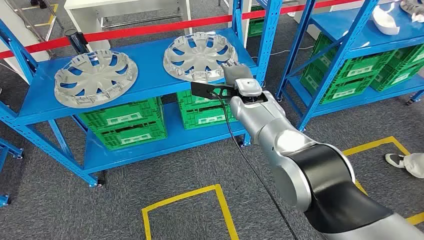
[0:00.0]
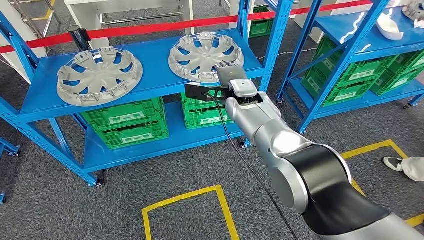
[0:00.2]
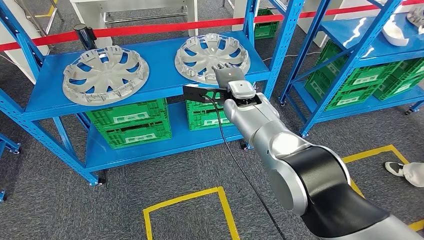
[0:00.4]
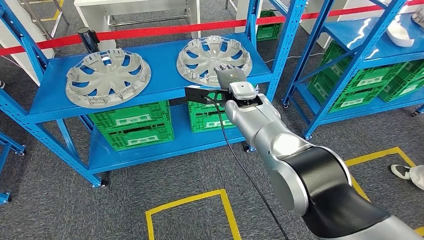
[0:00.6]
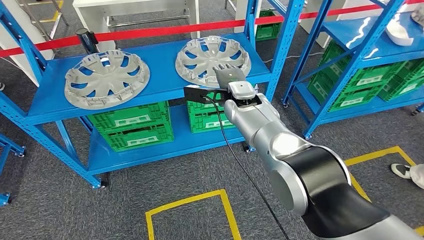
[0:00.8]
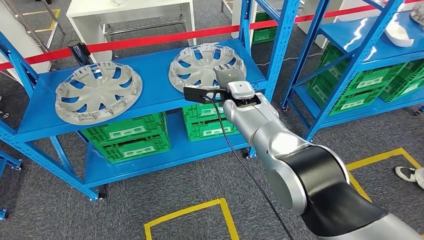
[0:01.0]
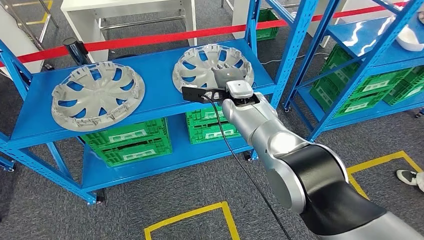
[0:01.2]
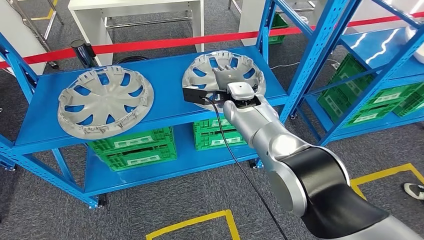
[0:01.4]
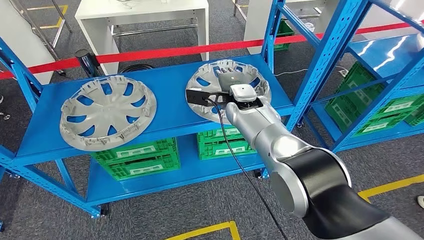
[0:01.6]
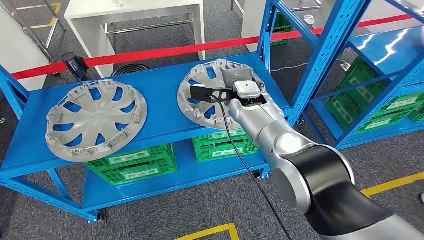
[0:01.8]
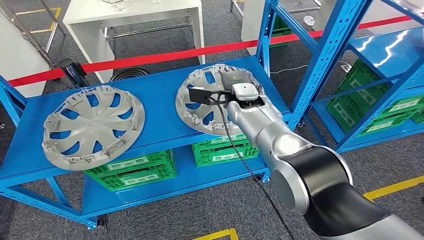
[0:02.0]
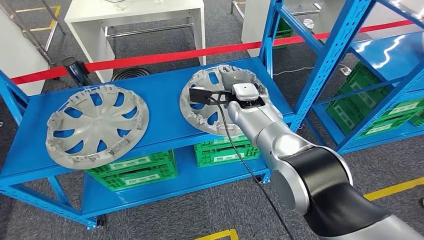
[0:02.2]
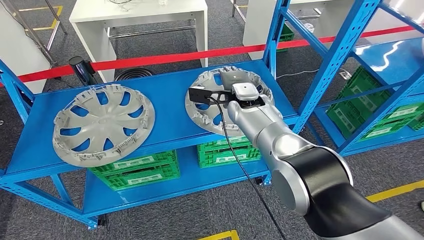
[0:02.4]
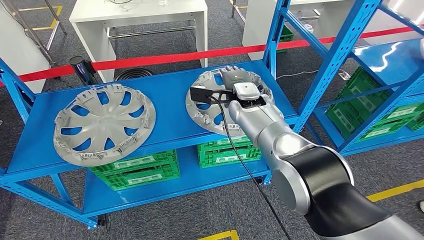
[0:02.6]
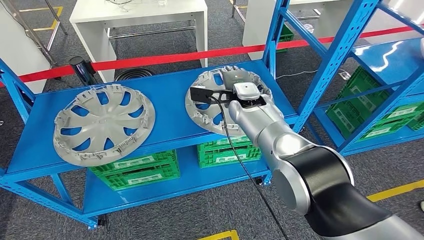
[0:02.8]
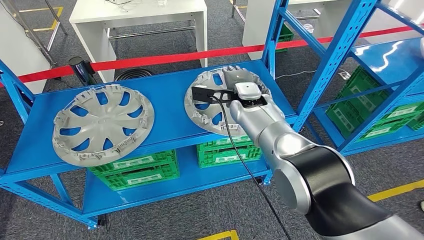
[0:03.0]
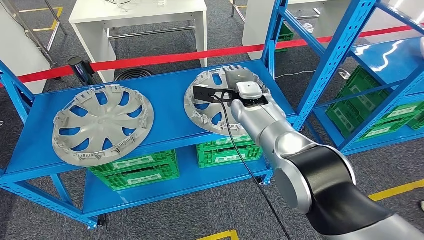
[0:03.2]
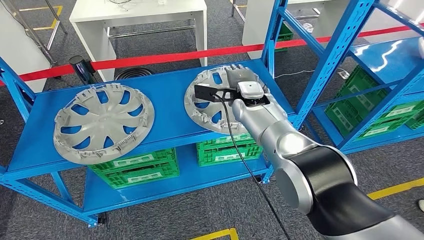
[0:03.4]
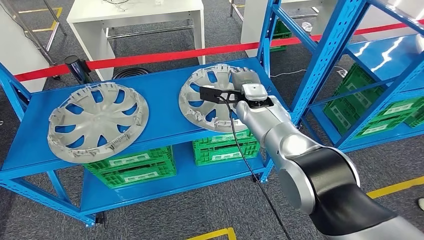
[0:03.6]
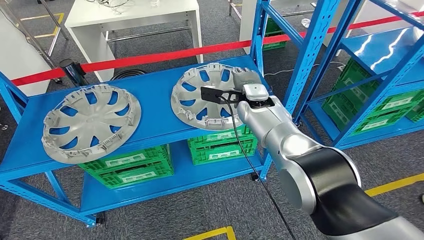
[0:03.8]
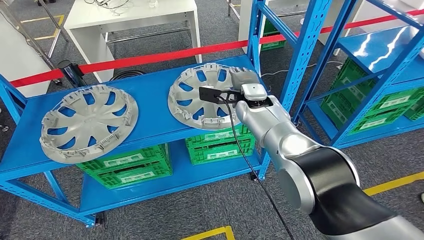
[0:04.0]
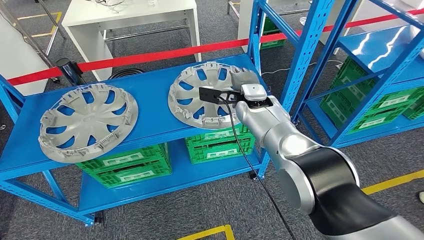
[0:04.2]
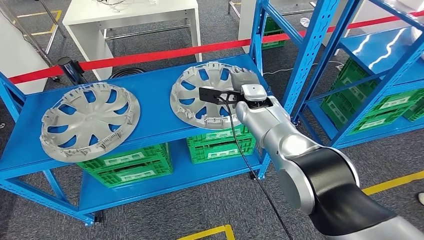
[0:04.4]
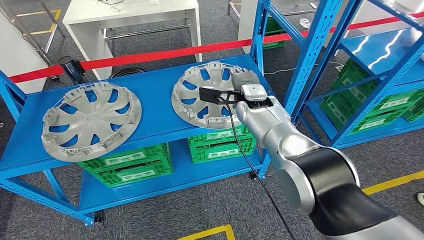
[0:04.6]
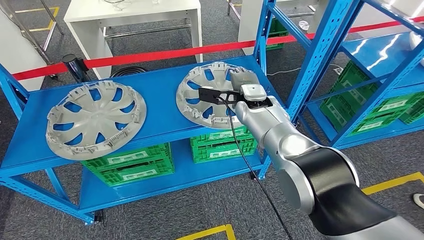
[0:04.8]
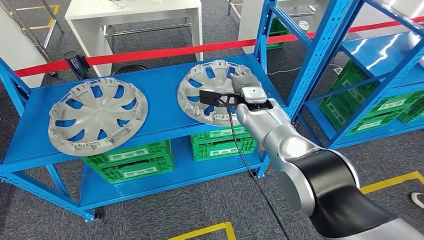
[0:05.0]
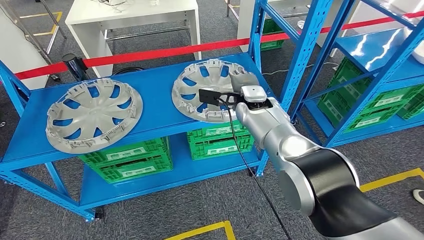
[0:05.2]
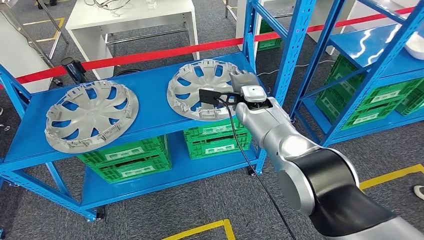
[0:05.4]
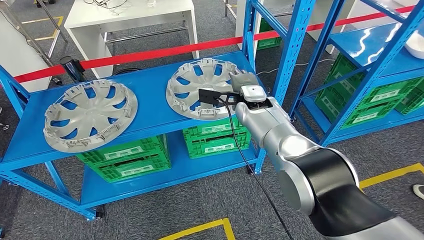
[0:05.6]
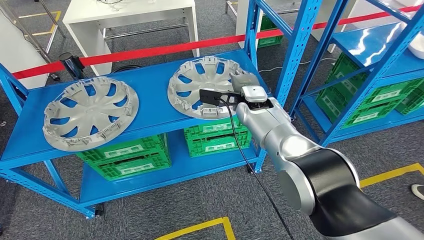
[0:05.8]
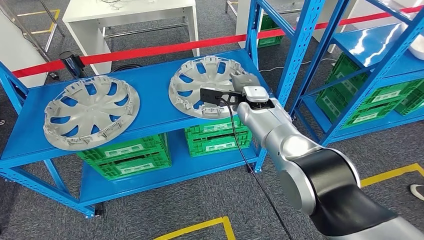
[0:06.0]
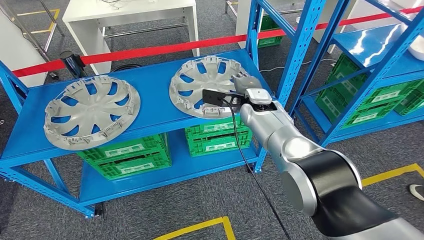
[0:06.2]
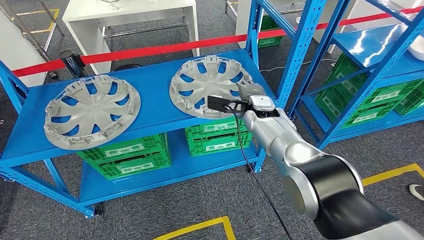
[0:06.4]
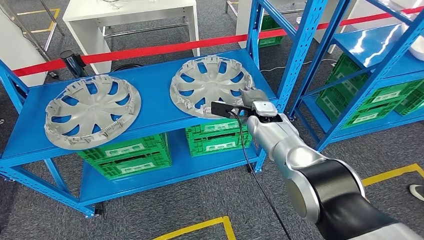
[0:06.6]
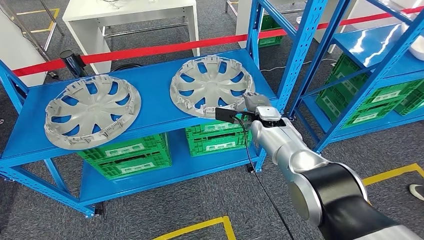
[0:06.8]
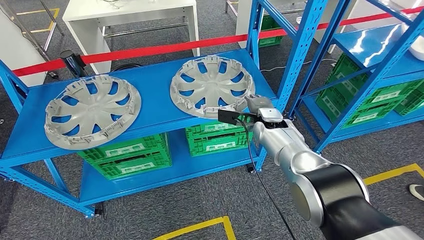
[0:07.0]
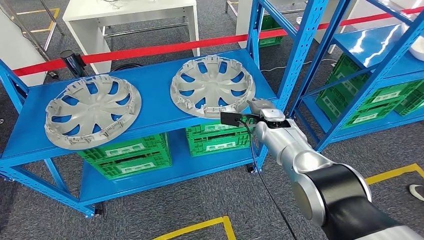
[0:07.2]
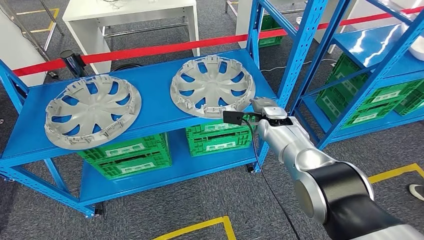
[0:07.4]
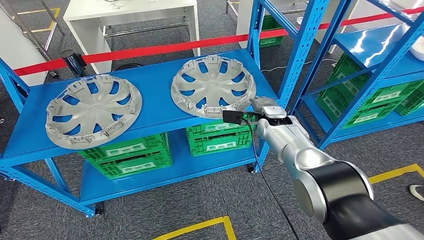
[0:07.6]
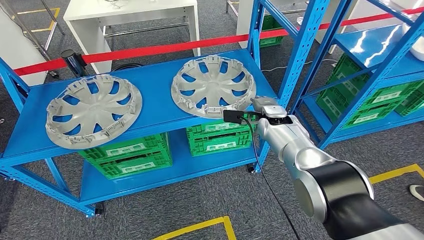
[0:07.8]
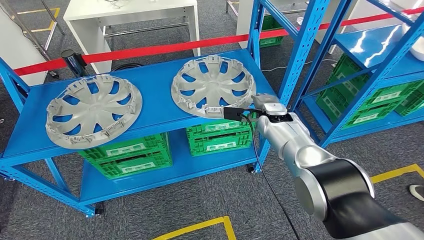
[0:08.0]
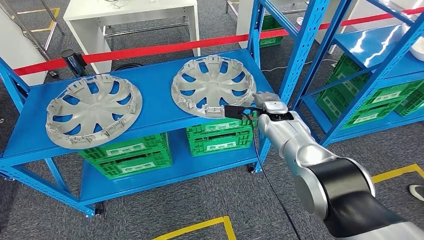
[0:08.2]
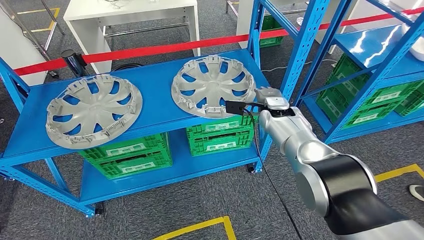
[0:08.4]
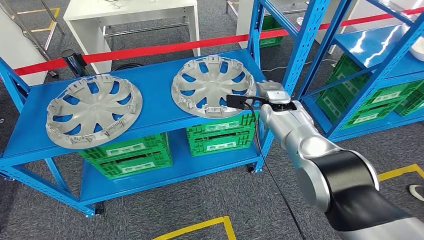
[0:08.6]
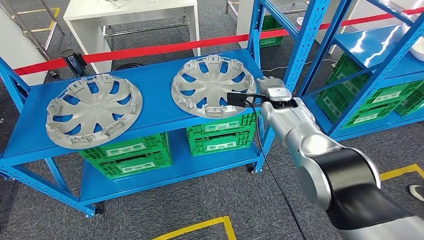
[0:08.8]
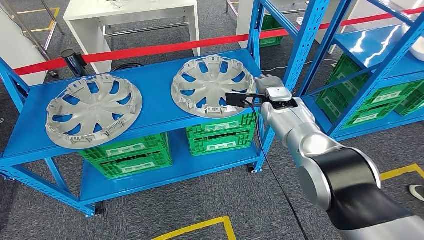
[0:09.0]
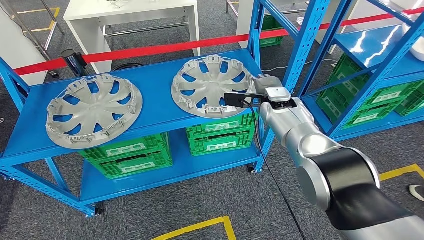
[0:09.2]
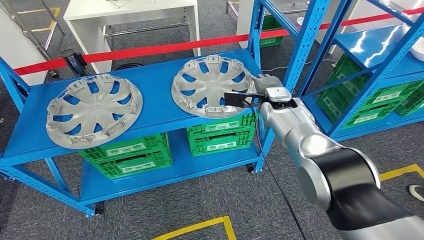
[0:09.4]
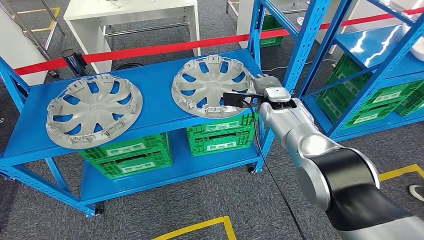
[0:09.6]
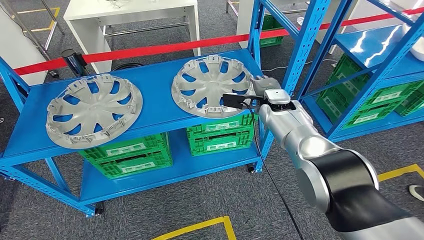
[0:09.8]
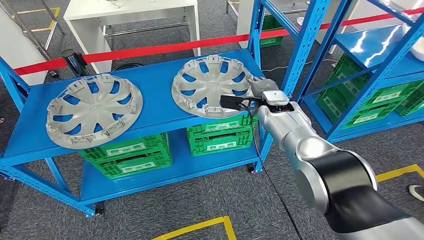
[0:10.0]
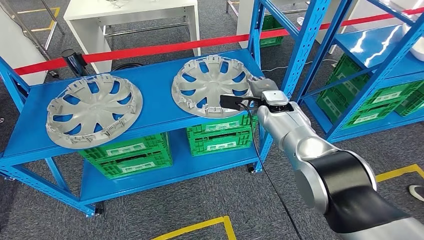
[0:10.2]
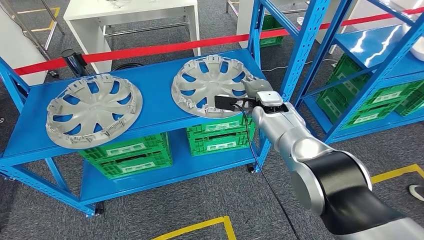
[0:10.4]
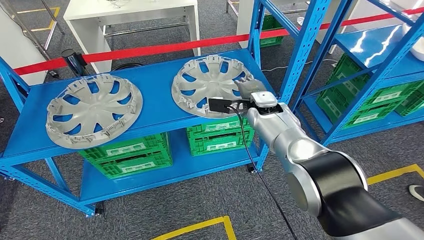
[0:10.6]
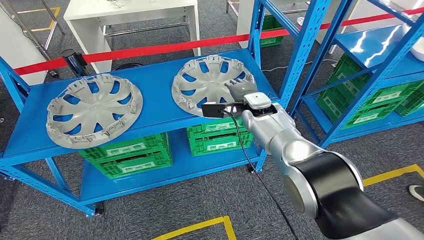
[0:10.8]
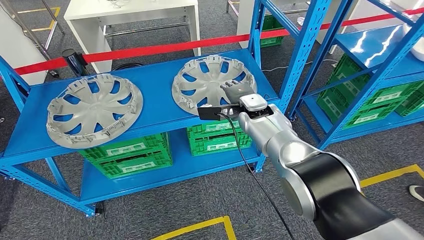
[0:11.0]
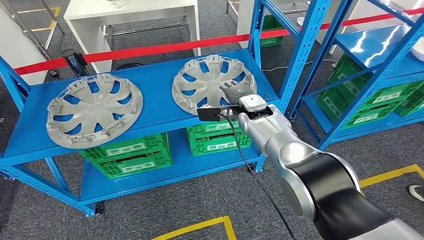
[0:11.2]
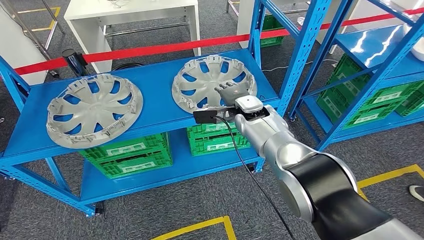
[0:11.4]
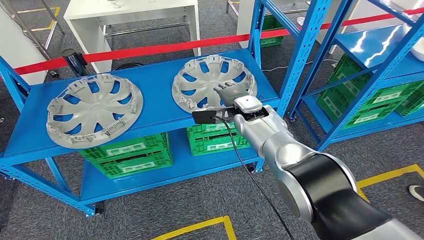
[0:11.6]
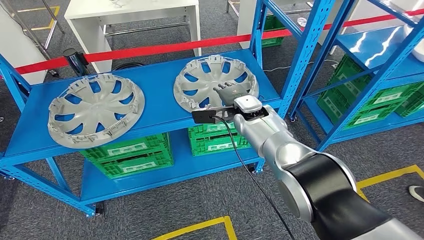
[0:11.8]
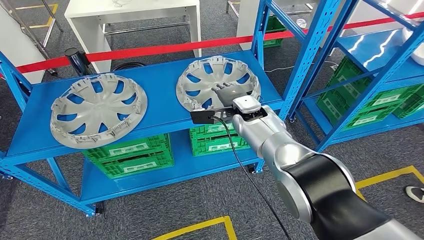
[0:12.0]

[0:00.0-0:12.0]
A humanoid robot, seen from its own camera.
0:06.0 to 0:07.6: The right hand is displaced to the right and downward by approximately 10 cm.
0:07.6 to 0:09.0: The right hand changes place by about 5 cm.
0:09.0 to 0:10.4: The hands stay close to where they were, moving slightly.

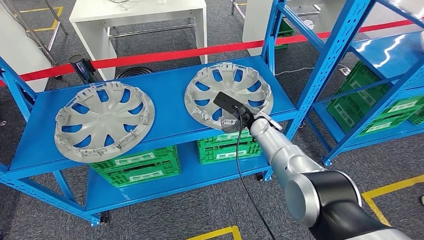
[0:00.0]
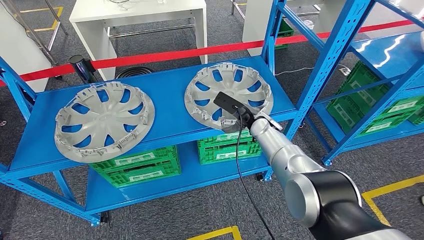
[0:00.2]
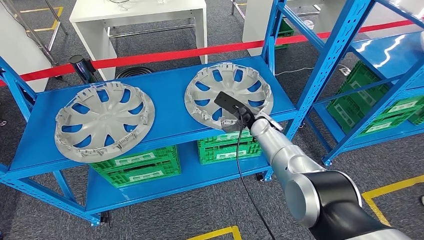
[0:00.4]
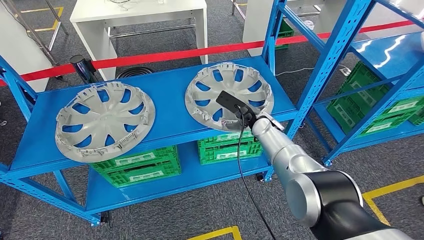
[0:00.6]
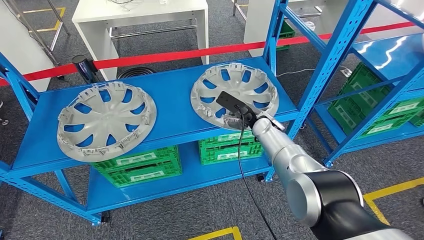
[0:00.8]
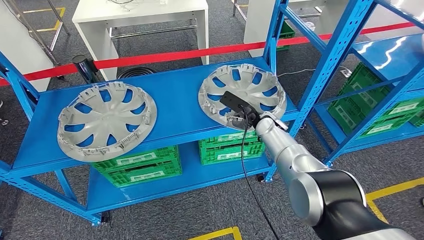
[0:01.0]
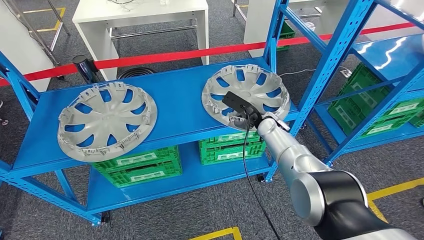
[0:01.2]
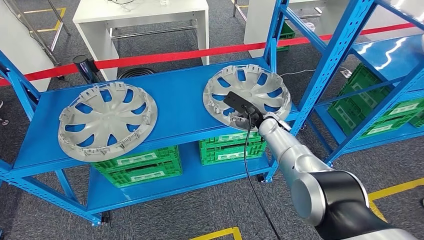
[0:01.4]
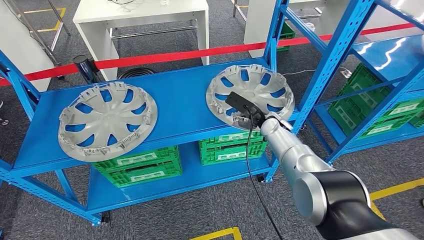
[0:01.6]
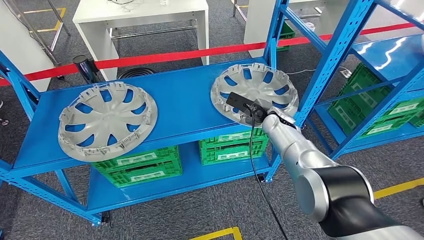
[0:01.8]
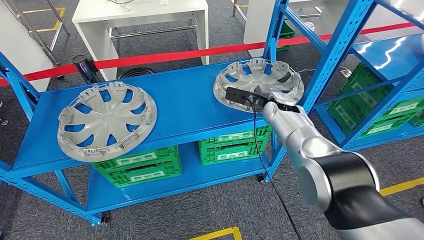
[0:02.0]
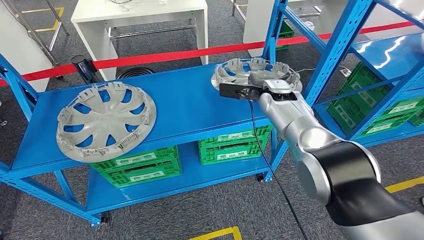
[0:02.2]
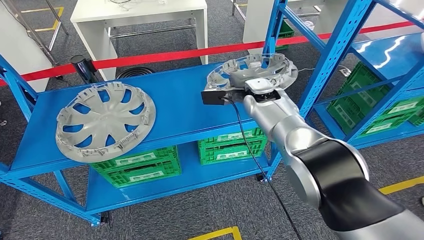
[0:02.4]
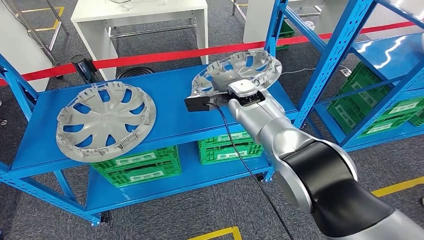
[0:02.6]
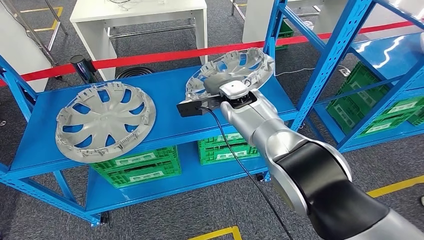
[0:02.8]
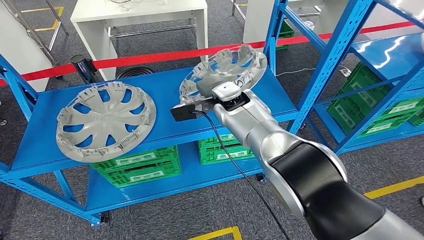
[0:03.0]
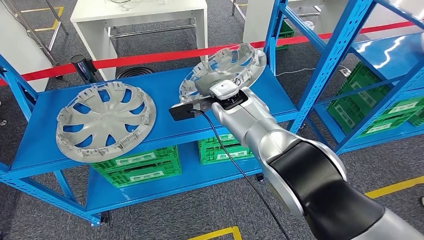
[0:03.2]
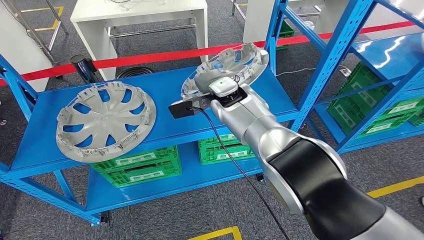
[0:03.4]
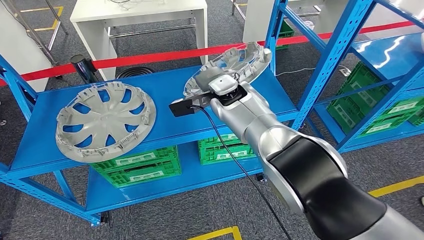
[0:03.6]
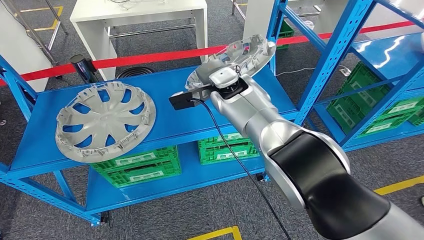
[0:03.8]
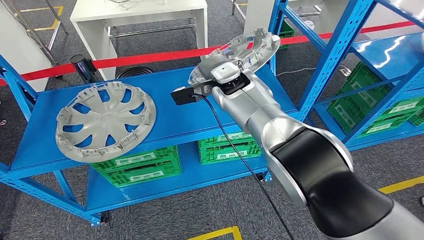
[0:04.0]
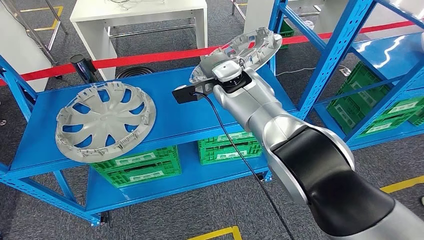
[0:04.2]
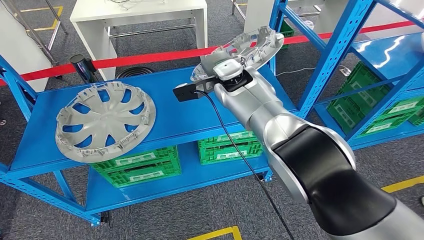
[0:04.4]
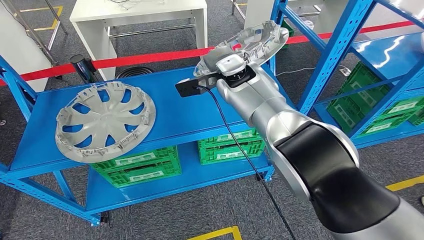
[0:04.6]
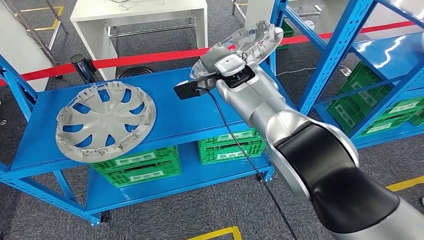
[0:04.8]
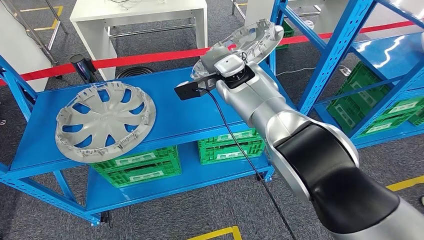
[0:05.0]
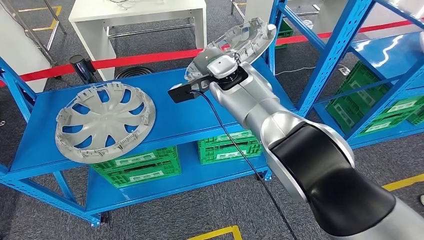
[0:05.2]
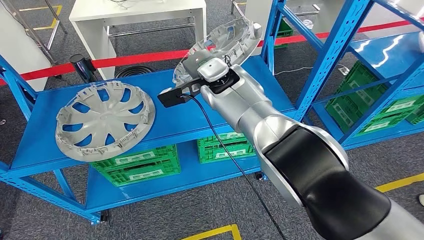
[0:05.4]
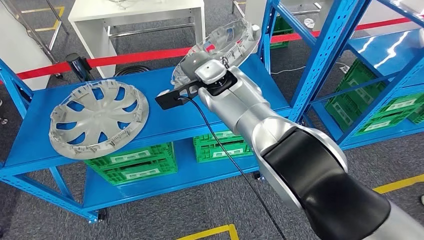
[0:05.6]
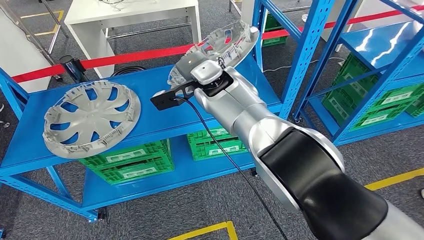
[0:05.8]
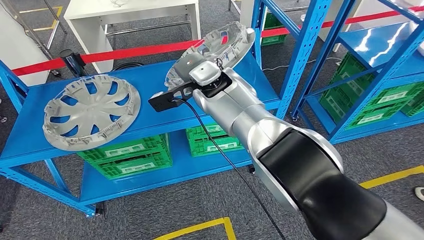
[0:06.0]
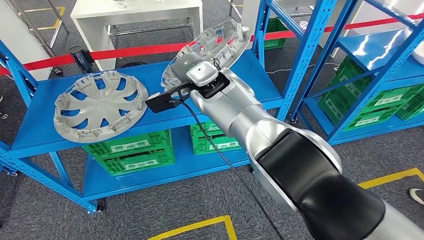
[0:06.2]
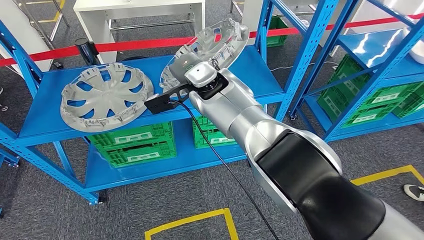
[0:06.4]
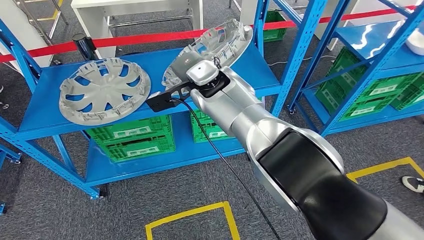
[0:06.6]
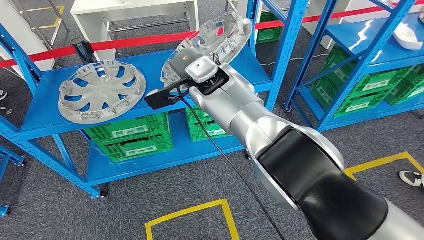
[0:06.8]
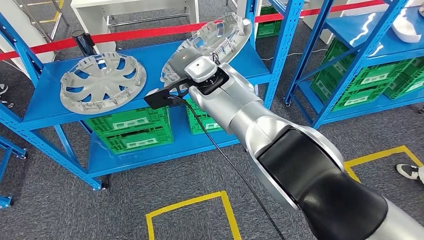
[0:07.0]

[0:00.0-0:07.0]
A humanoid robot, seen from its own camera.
Step, 0:00.0 to 0:05.4: Pick up the small component from the shelf.
0:02.8 to 0:04.2: The right hand moves upward, some 5 cm.
